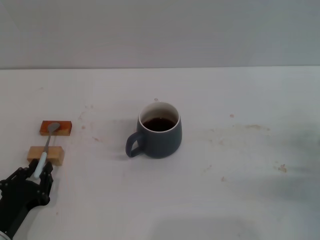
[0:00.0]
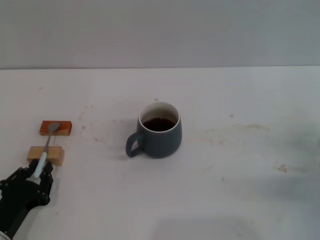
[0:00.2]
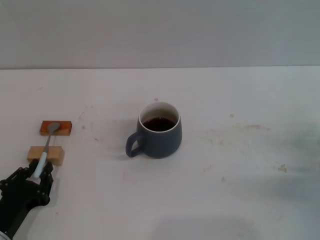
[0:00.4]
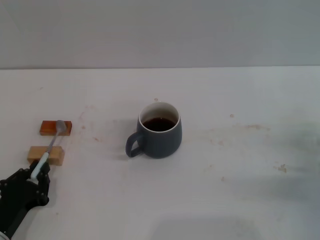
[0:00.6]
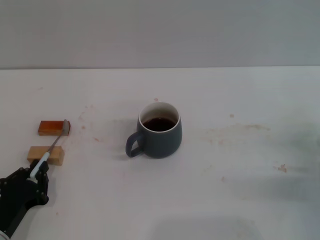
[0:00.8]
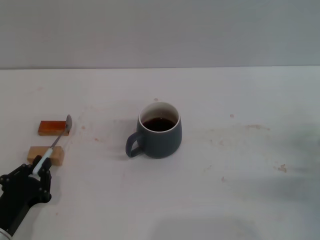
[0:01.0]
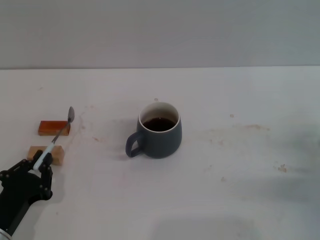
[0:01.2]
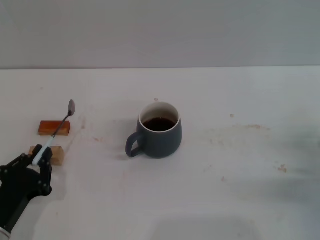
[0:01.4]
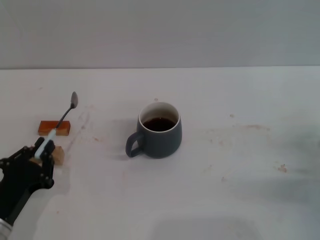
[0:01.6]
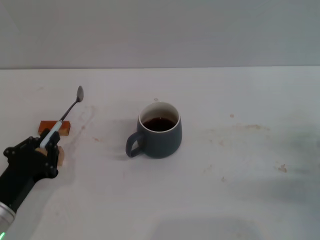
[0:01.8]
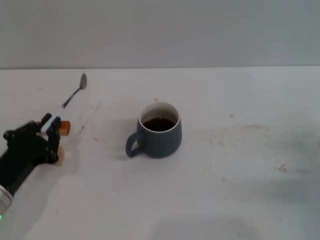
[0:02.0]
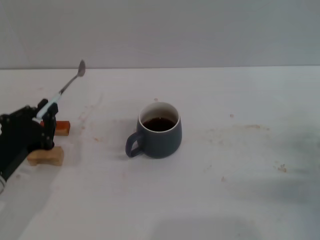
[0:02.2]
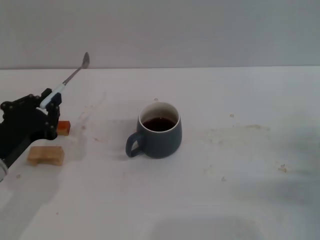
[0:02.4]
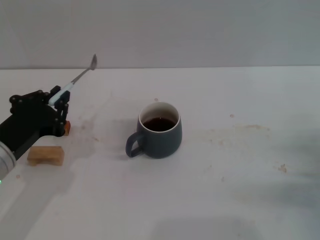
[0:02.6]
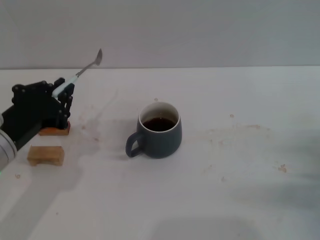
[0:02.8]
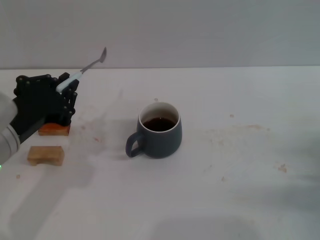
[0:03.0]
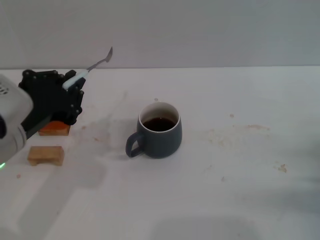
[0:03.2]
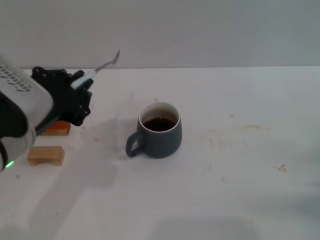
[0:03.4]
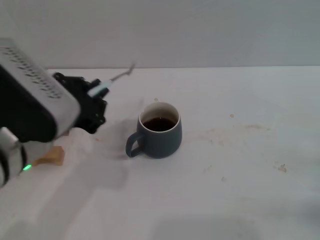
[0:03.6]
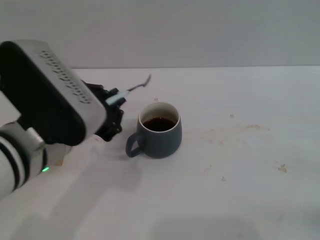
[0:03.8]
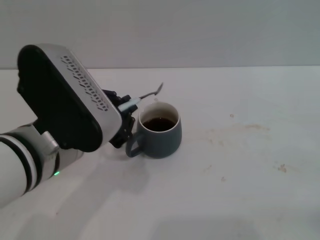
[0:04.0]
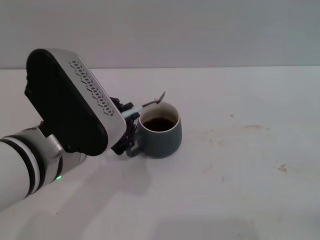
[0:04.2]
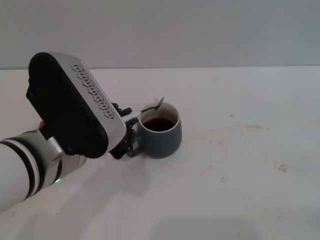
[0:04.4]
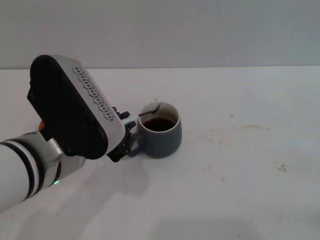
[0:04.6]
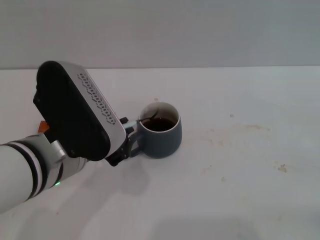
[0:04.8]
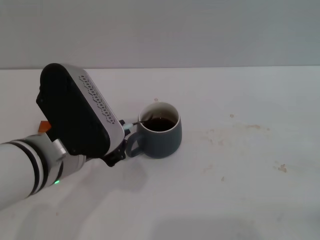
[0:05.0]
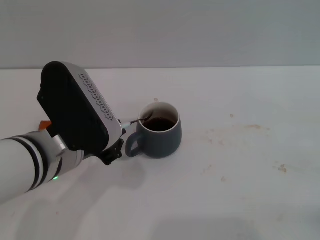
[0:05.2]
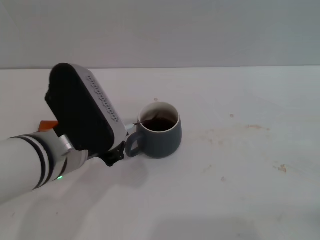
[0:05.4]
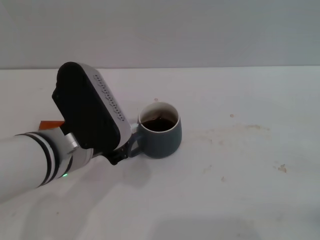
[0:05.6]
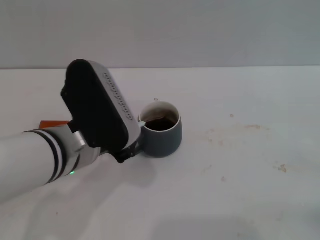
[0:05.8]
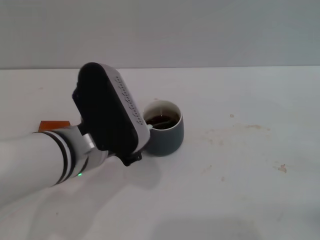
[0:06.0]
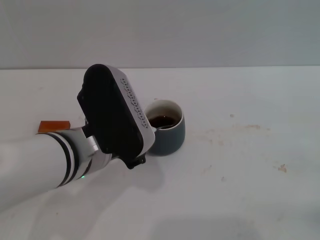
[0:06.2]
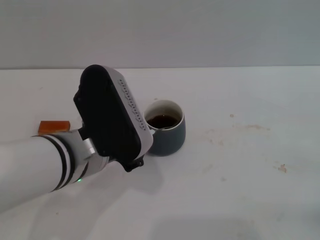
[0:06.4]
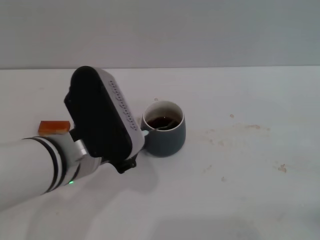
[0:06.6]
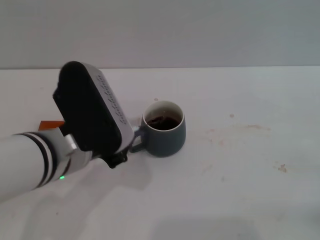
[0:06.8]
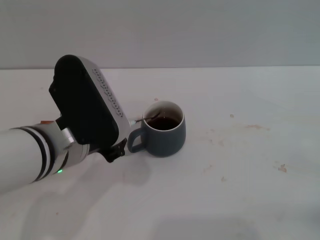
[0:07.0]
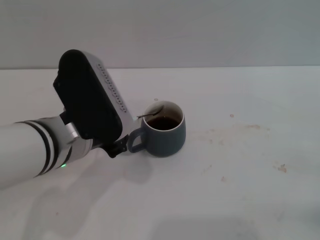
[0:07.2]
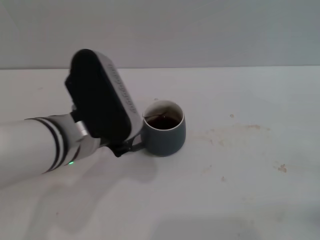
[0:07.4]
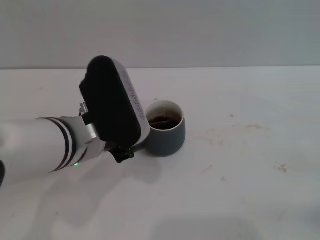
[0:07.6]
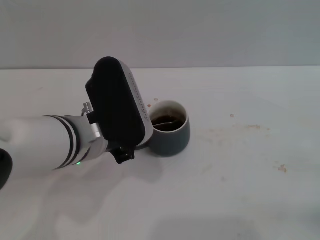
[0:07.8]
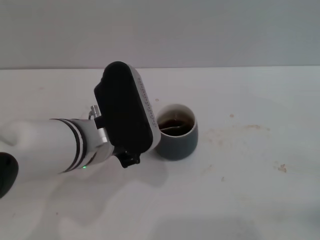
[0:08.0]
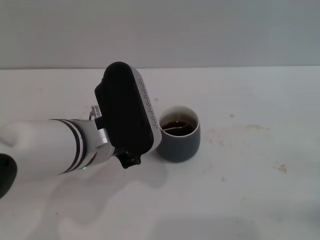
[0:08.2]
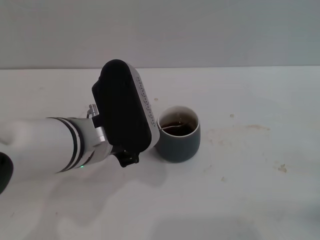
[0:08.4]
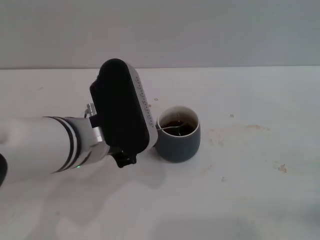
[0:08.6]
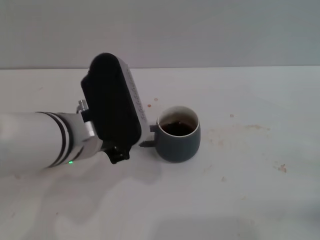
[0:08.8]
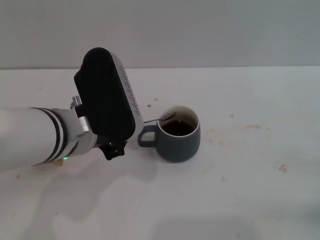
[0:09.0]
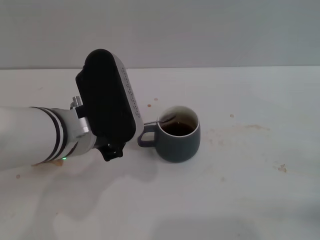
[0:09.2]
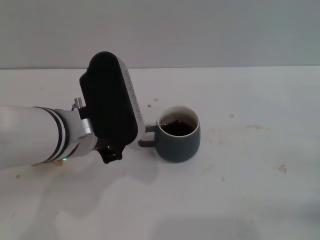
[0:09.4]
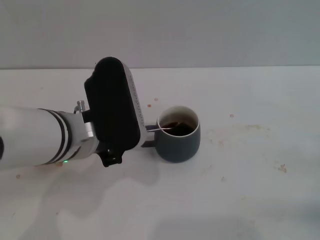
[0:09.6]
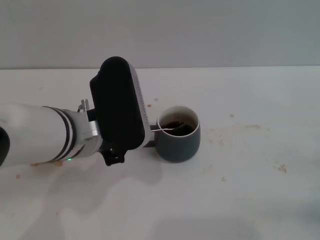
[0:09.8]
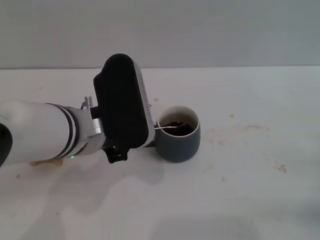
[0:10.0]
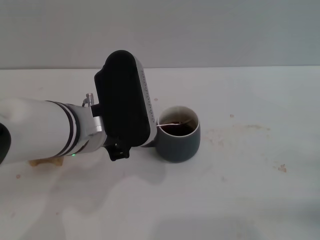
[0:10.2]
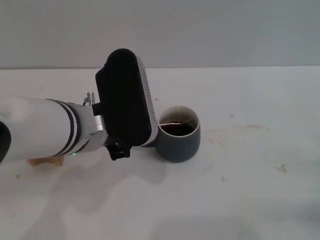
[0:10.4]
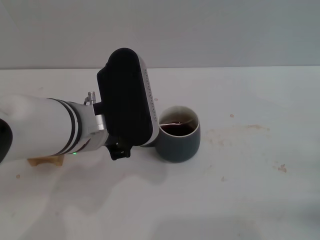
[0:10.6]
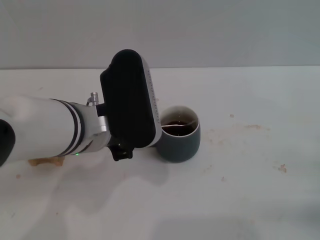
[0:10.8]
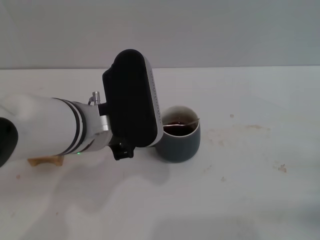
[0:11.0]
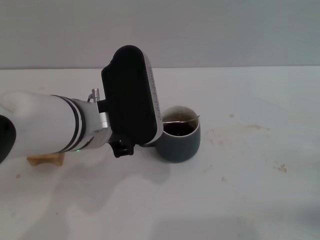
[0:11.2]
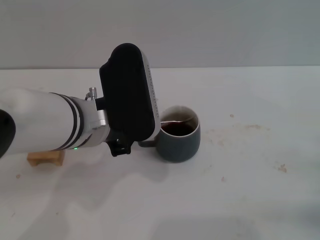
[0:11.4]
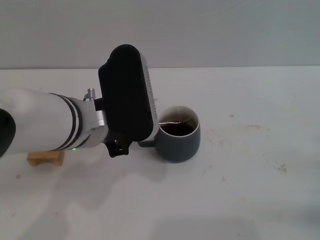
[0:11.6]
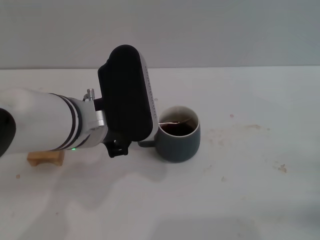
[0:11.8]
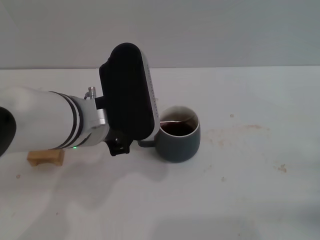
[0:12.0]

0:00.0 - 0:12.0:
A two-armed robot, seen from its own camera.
Task of the whole recording: Move the grey cup to the center, lift the blue spoon, stir it three times in the cup, and put the spoon into the cup.
0:00.0 - 0:01.6: The grippers make only small movements.
0:01.6 - 0:03.0: The left gripper moves upward, about 15 cm.
0:03.0 - 0:04.4: The right gripper is displaced to the right by about 5 cm; the left gripper travels to the right by about 10 cm.
0:04.4 - 0:09.0: The grippers make only small movements.
0:09.0 - 0:10.4: The grippers make only small movements.
0:10.4 - 0:12.0: Both grippers stay about where they are.

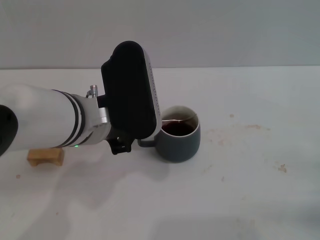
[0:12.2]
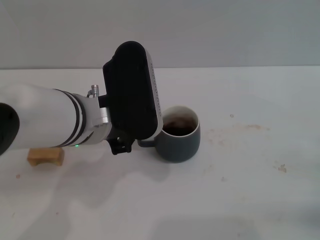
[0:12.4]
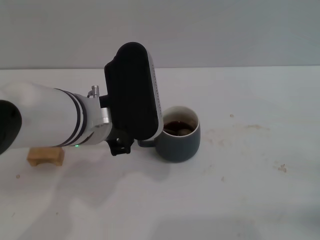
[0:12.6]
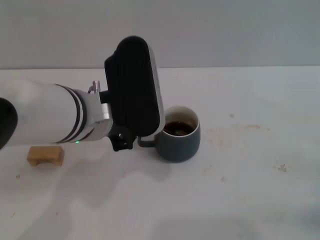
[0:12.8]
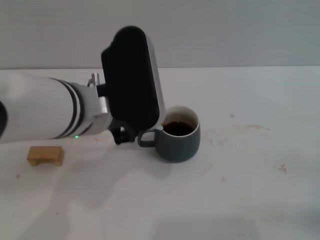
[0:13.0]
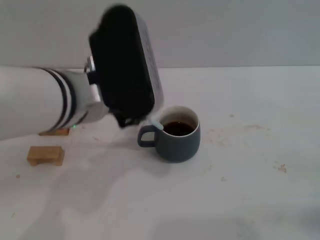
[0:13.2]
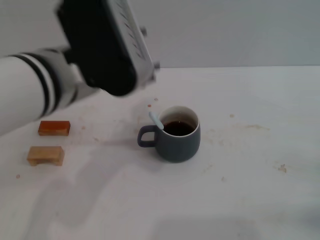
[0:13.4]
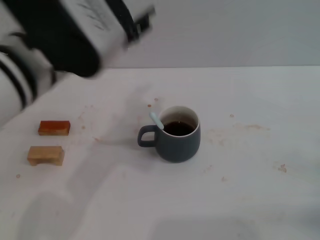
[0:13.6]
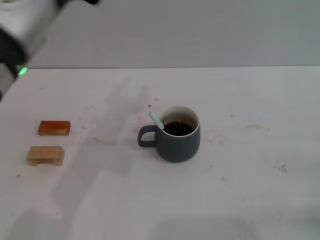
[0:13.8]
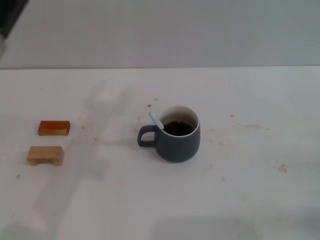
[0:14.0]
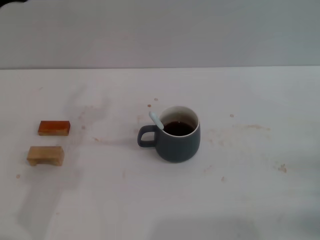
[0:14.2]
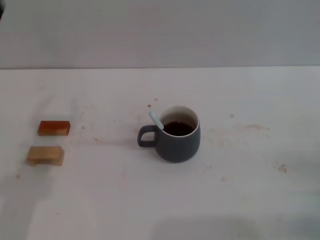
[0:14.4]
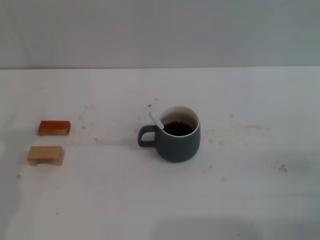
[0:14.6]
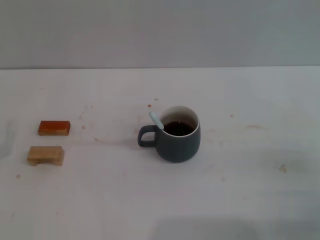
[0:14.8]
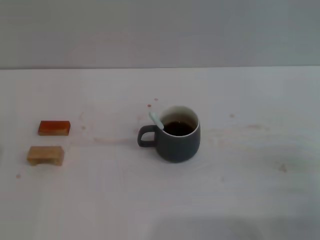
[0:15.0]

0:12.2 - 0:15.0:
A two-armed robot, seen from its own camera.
Task of the whole recording: Move the grey cup to the center, lift the blue spoon, stir it three times in the cup, and put the spoon into the cup.
0:12.2 - 0:13.6: The left gripper shifts approximately 5 cm upward, and opens up.
0:13.6 - 0:15.0: The left gripper moves downward and to the left, about 30 cm.
